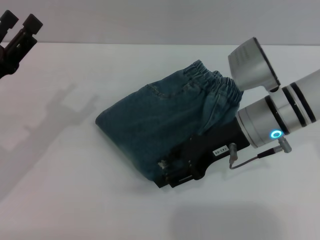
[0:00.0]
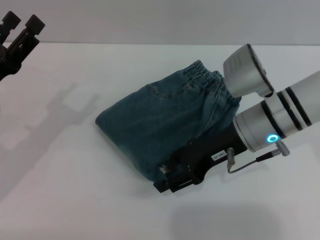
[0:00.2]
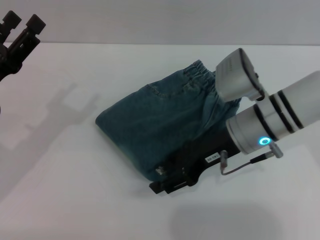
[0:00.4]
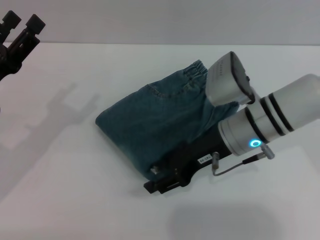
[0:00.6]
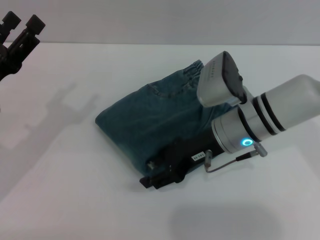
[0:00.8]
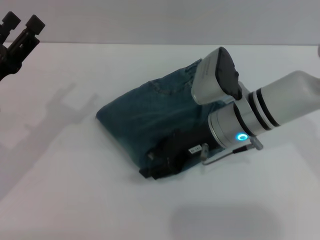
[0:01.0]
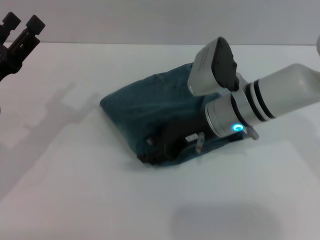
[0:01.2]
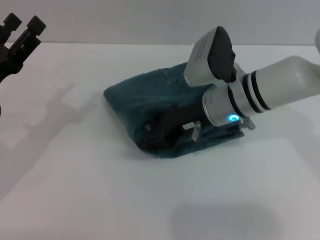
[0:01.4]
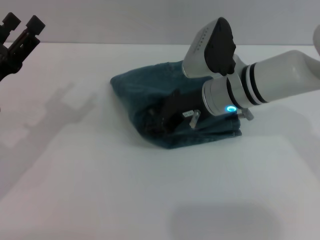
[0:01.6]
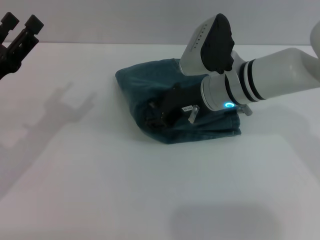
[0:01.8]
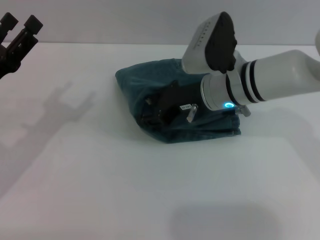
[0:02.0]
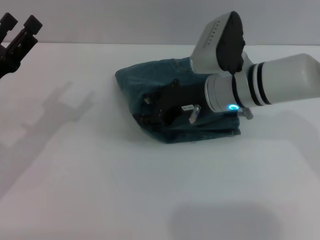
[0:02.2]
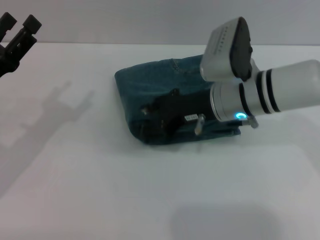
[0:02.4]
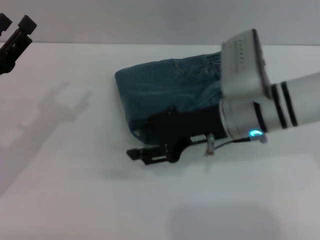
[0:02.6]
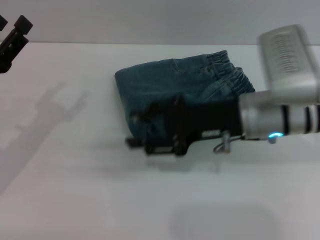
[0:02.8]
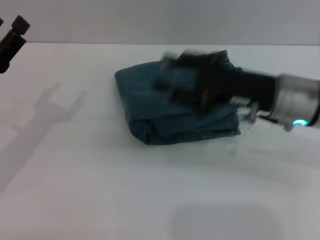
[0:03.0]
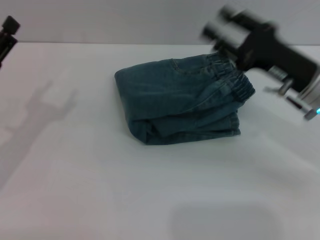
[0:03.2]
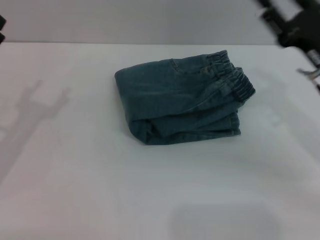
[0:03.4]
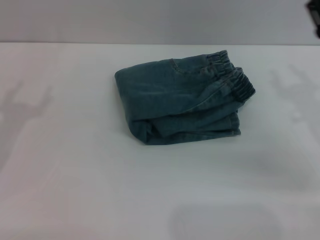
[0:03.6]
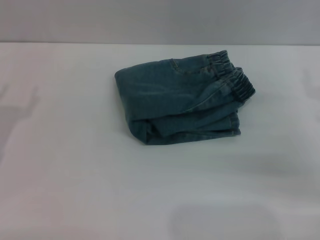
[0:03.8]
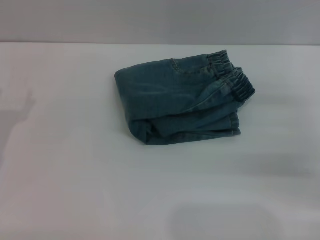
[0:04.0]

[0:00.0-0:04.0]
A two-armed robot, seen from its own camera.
Step, 0:00.0 to 0:02.4: Place the folded trousers onto the center area with the right grippers.
0:00.0 to 0:01.4: The right gripper ends up roughly 5 cm from where it was.
0:01.4 to 0:02.6: There are only small adjustments of the grippers.
0:02.6 to 0:04.0: The right gripper is displaced to the right by approximately 20 cm.
